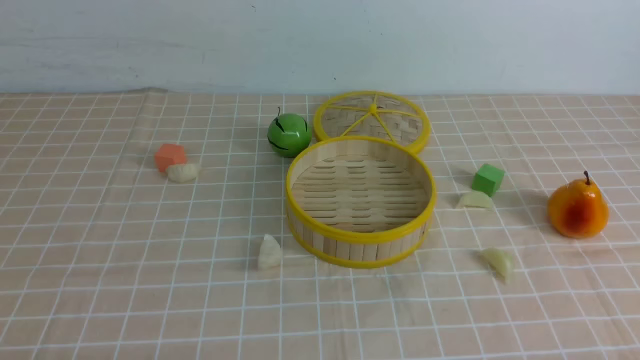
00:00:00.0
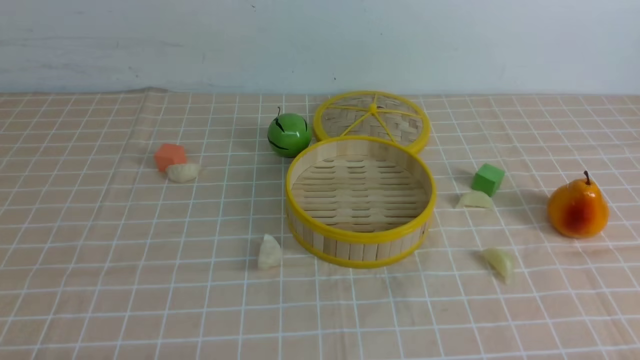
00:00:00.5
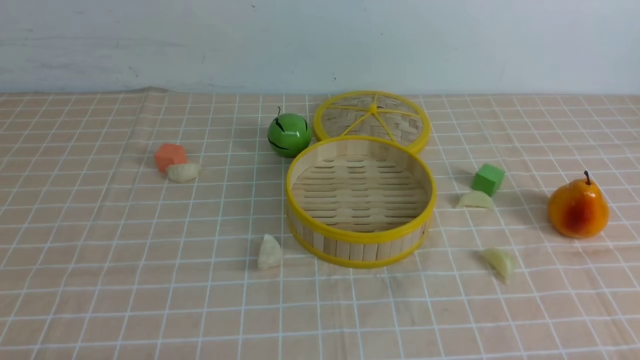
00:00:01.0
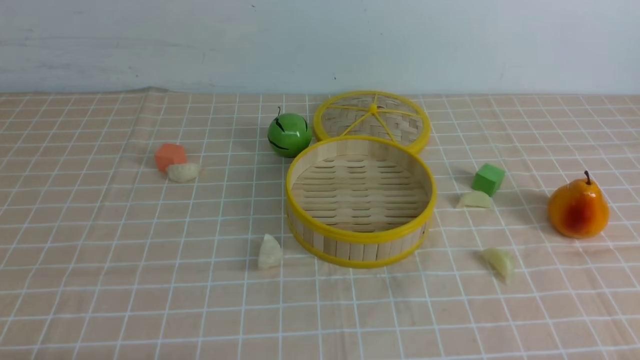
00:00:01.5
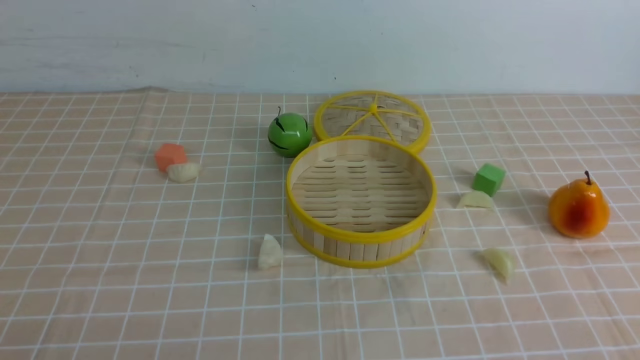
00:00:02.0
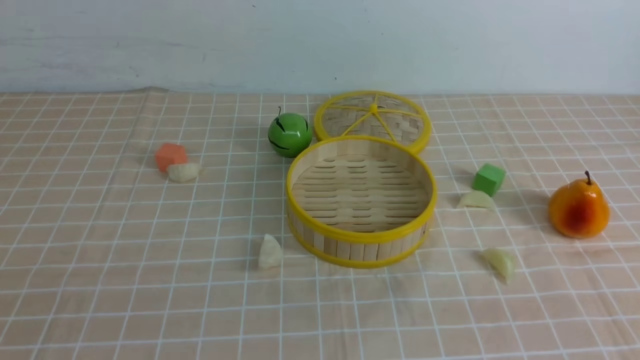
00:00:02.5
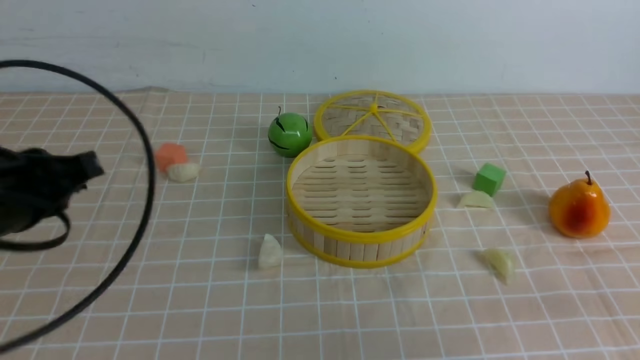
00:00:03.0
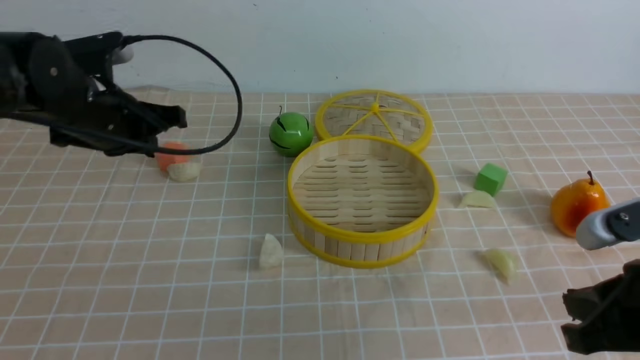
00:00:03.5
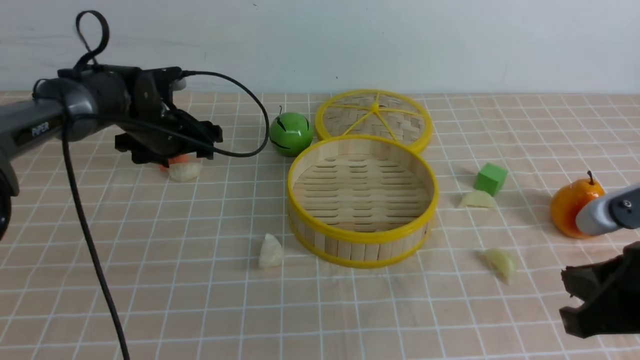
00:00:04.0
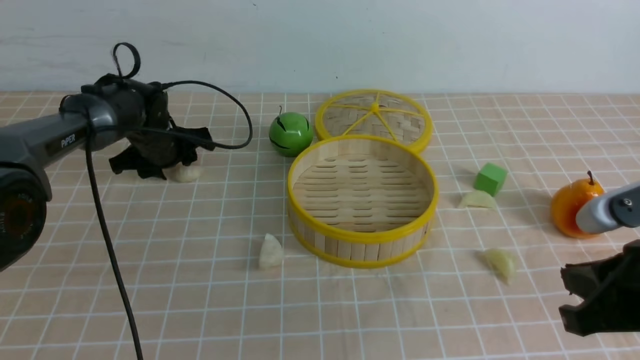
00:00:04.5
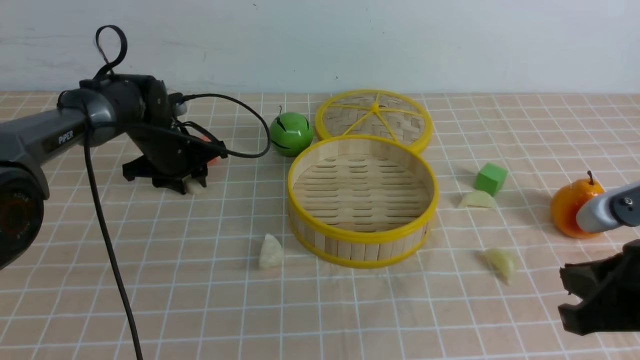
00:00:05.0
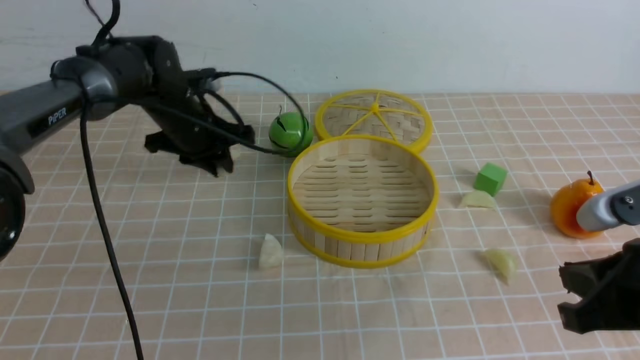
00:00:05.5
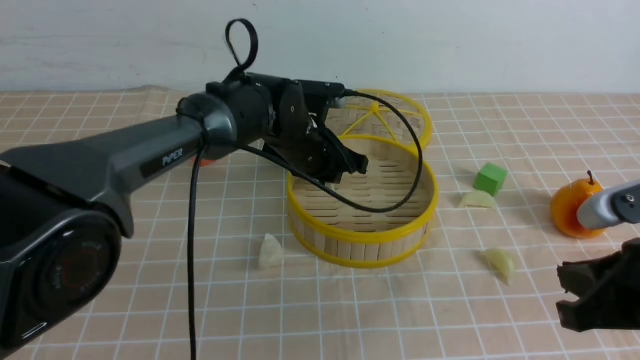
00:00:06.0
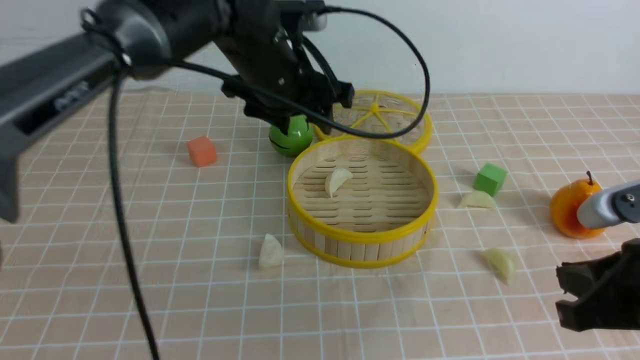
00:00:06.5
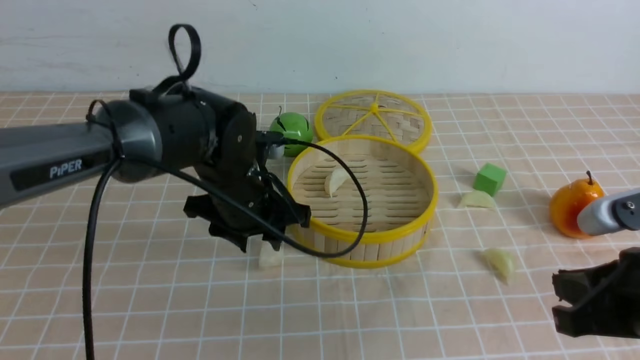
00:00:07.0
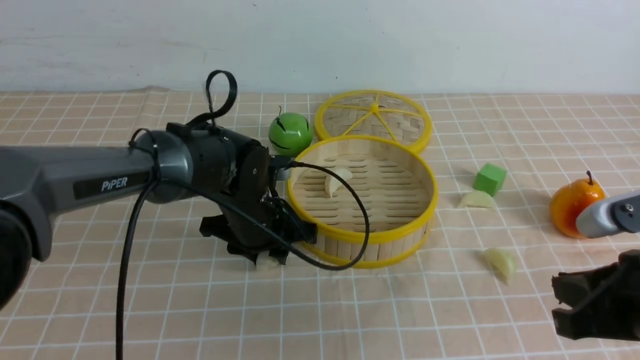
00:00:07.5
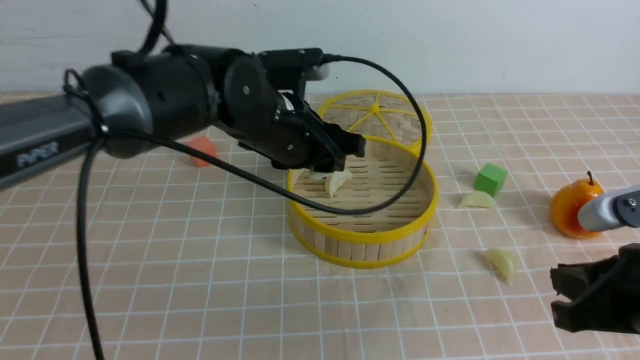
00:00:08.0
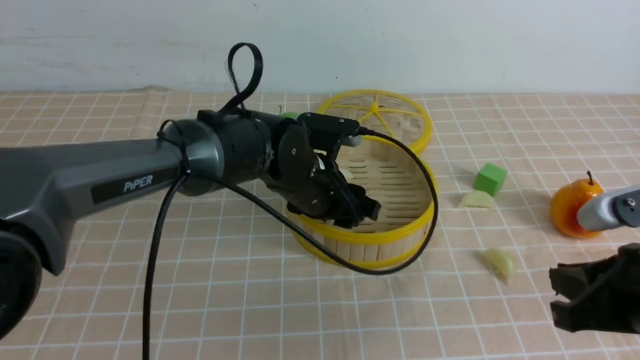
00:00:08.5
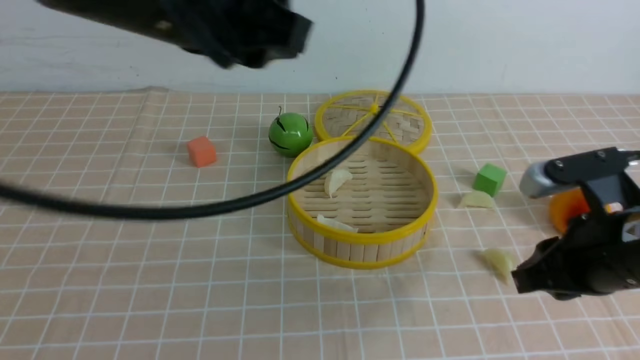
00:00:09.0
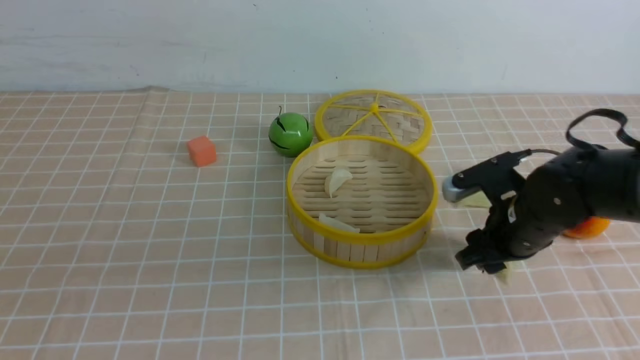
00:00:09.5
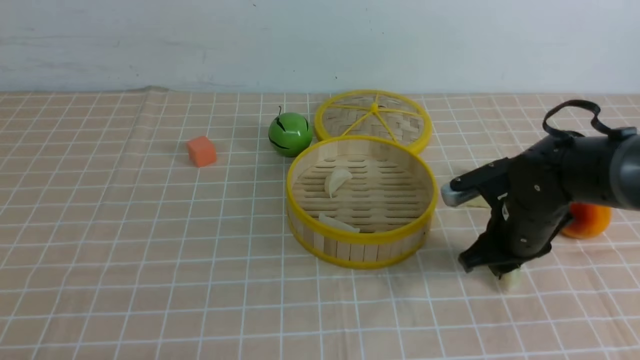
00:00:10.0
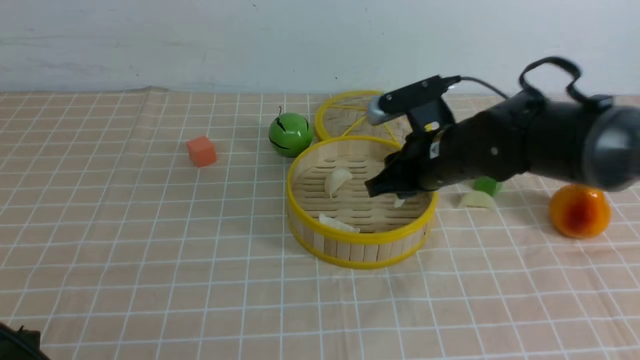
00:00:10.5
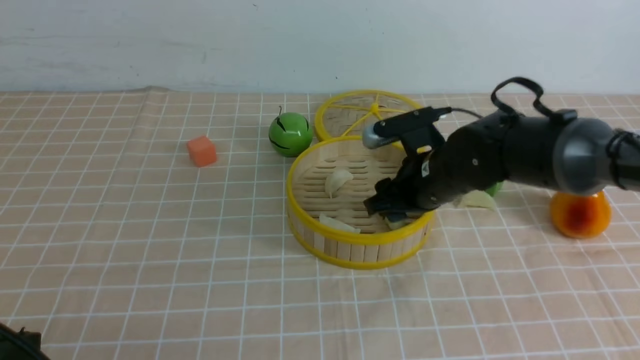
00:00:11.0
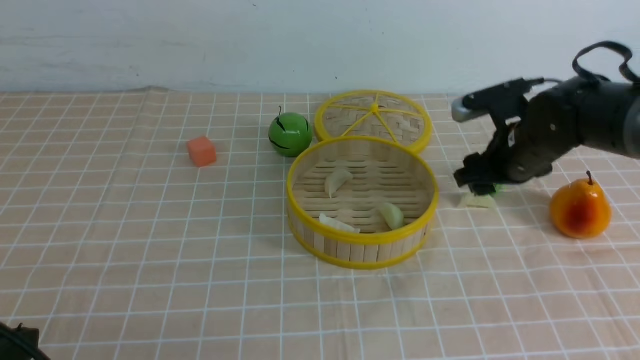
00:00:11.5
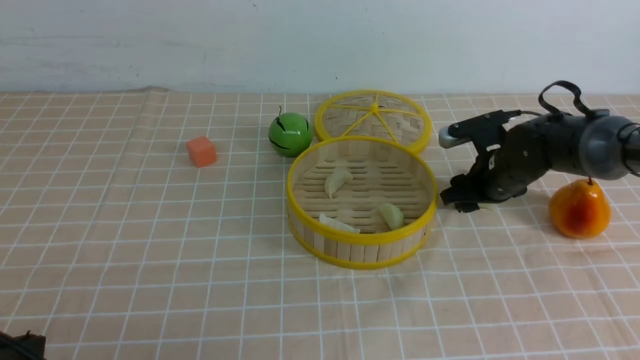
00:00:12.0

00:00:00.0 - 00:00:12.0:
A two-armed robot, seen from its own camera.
Task of the whole recording: put the dumplings into the steamer on the table with the brown tablecloth.
Step, 00:00:00.0 - 00:00:04.5: use the left arm to grab a dumpling.
Step, 00:00:05.0 - 00:00:06.0: use the left arm to put the dumpling into the steamer.
Step, 00:00:06.5 - 00:00:07.5: use the left arm to grab a dumpling.
Step, 00:00:08.0 - 00:00:08.5: use the left arm to put the dumpling into the steamer.
Step, 00:00:09.0 - 00:00:09.5: use the right arm to grab a dumpling.
Step, 00:00:10.0 - 00:00:11.0: use the right arm to put the dumpling into the steamer.
00:00:02.0 - 00:00:04.0: The left gripper travels forward by some 50 cm, and opens up, while the right gripper goes roughly 15 cm forward.
00:00:04.0 - 00:00:06.0: The left gripper moves to the right, about 20 cm, and closes up.
00:00:06.0 - 00:00:08.0: The left gripper goes up and down, about 15 cm each way, reversing 2 times.
00:00:08.0 - 00:00:10.0: The right gripper shifts some 20 cm forward. Meanwhile the left gripper heads backward and to the left, covering approximately 40 cm, and closes its fingers.
00:00:10.0 - 00:00:12.0: The right gripper heads forward, covering some 10 cm, reaches some 5 cm to the left, then returns, and opens.

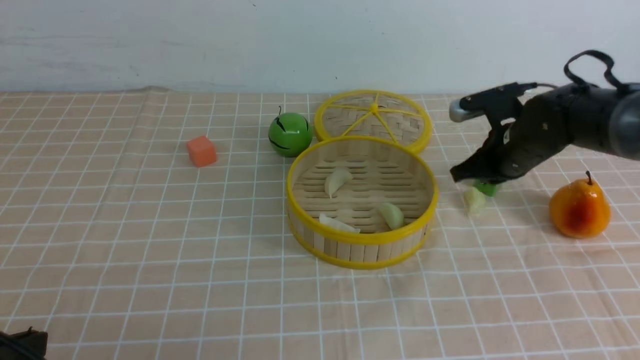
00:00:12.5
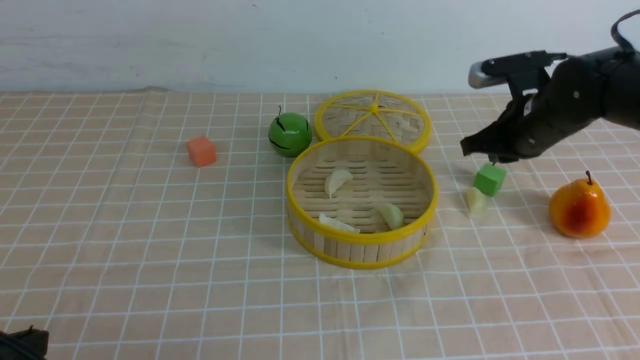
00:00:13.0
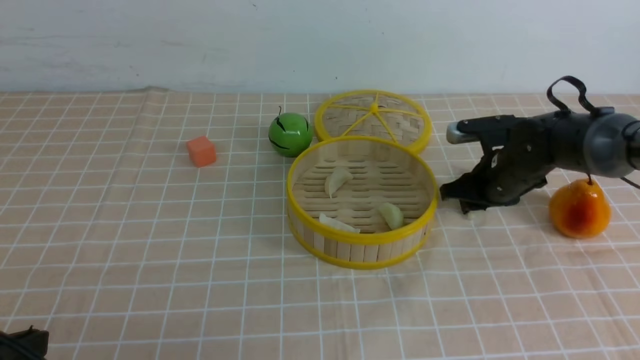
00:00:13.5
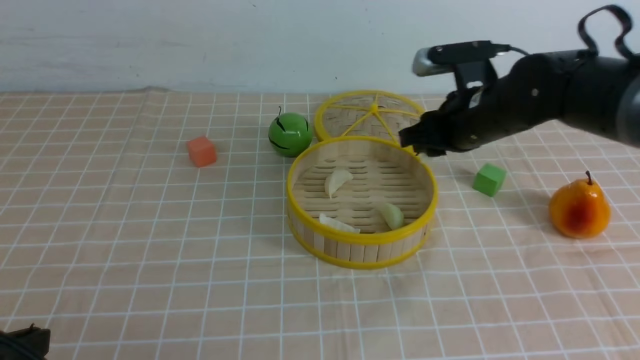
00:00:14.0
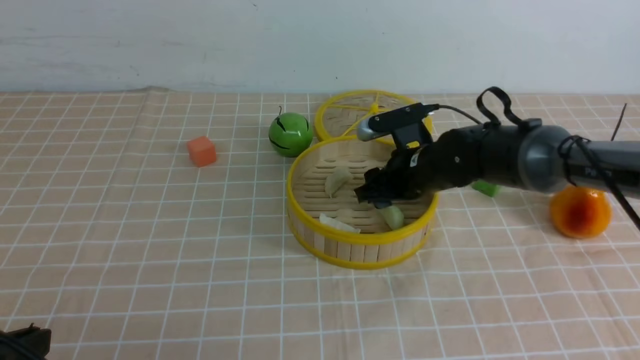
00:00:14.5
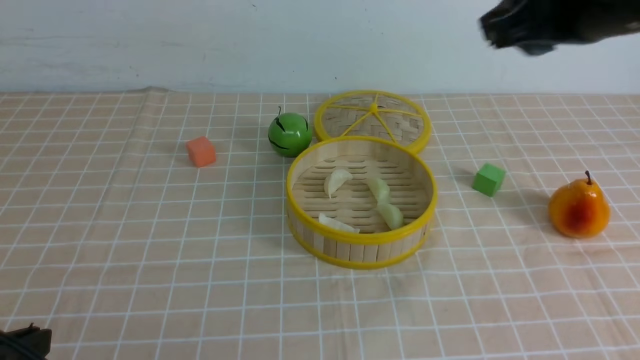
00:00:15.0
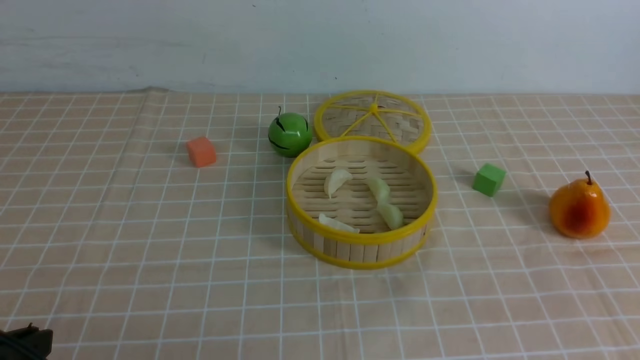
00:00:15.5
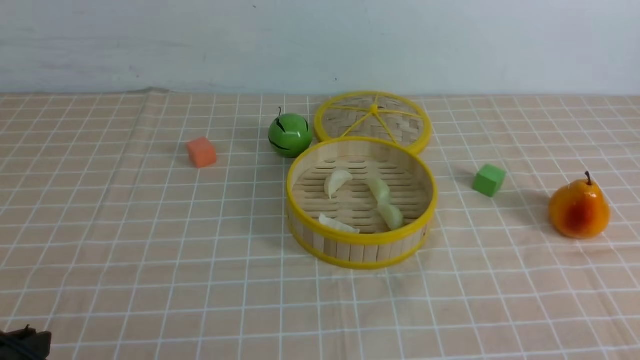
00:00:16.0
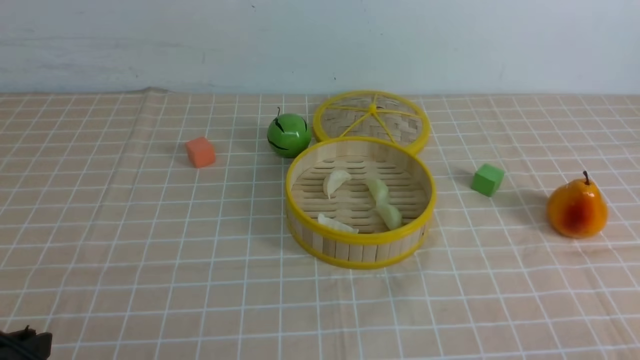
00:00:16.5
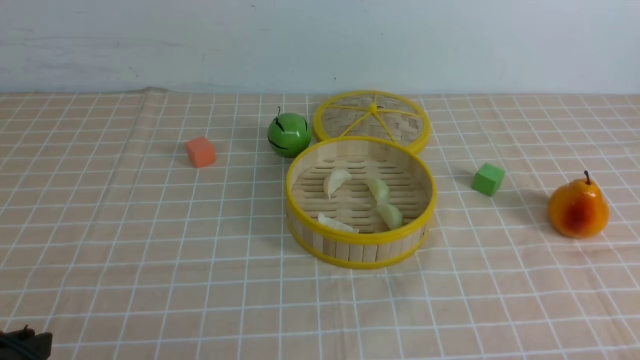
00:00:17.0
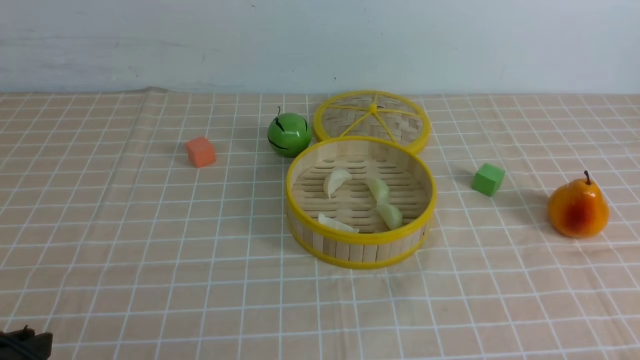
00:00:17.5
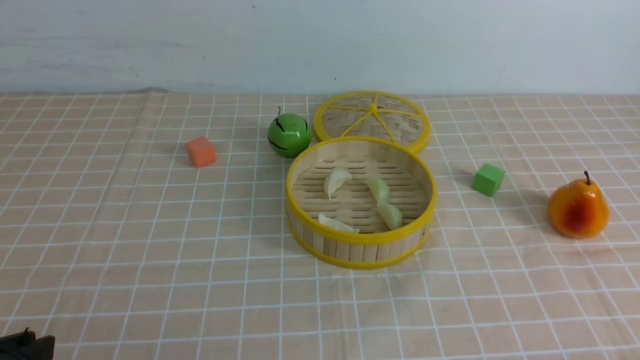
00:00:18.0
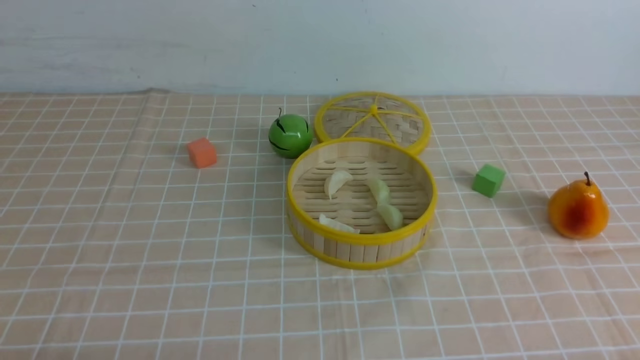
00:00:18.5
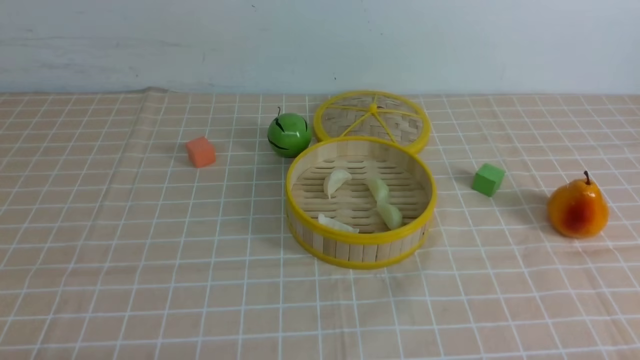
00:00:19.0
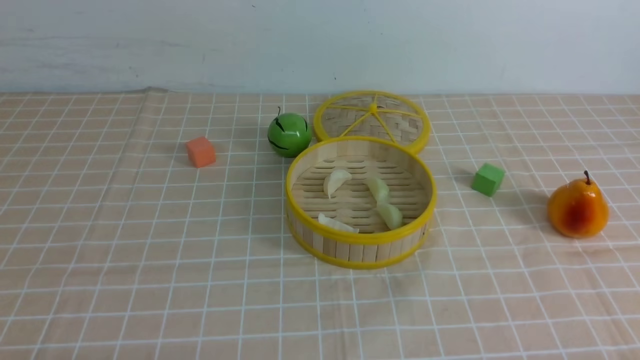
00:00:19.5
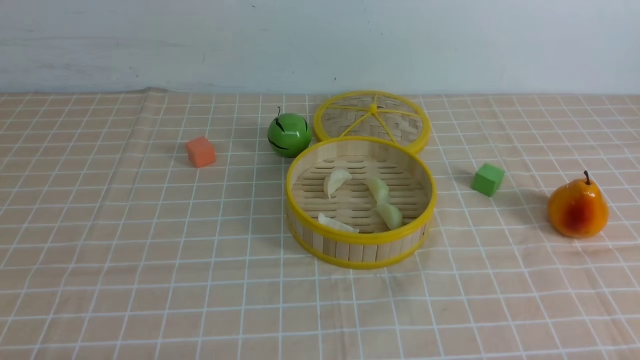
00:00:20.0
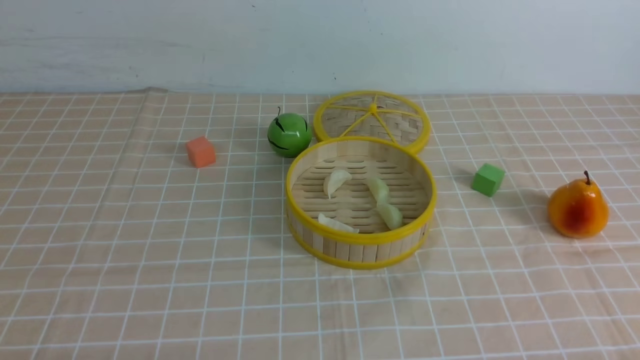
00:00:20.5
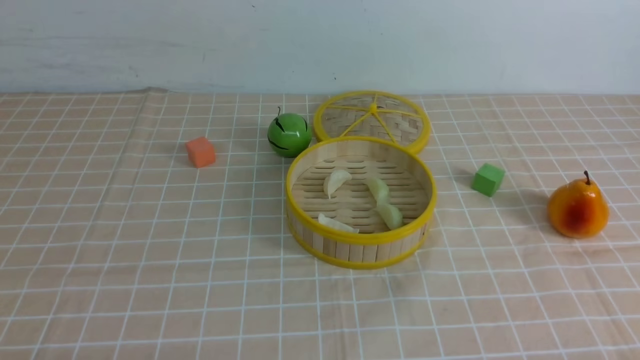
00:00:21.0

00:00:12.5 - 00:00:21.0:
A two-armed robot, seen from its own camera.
Task of the whole recording: put the dumplings into the steamer on the table with the brown tablecloth.
Step, 00:00:13.5 - 00:00:14.5: use the right arm to put the dumpling into the steamer.
00:00:12.5 - 00:00:14.5: The right gripper moves to the left, approximately 10 cm, and opens.
00:00:14.5 - 00:00:16.5: The right gripper goes approximately 40 cm backward and to the right, and closes.
00:00:16.5 - 00:00:19.0: The left gripper travels downward by about 10 cm.
